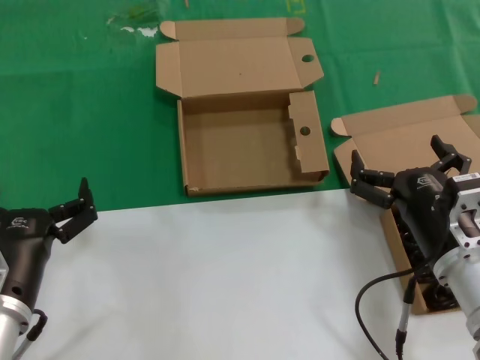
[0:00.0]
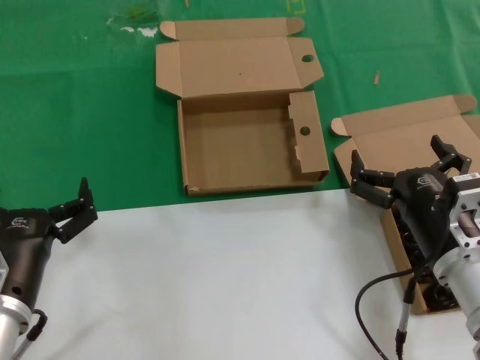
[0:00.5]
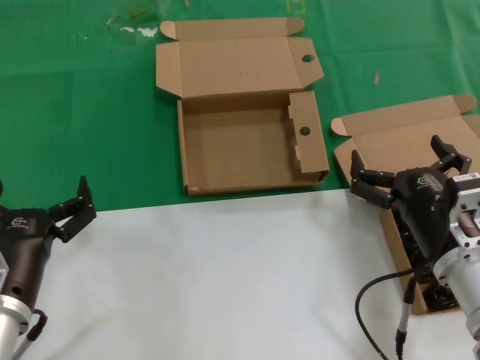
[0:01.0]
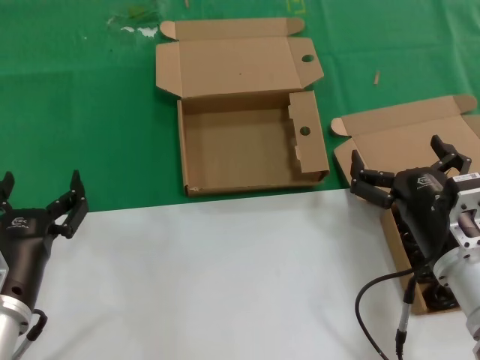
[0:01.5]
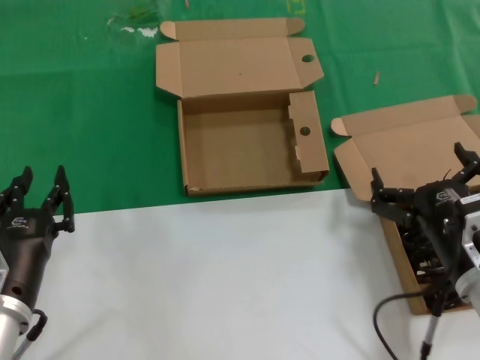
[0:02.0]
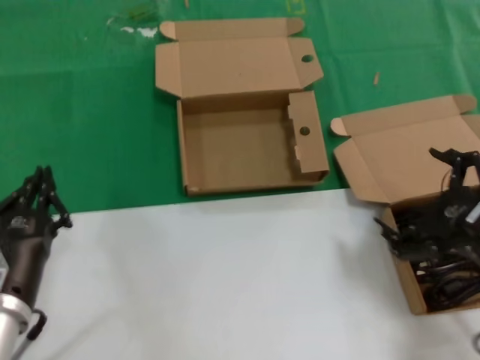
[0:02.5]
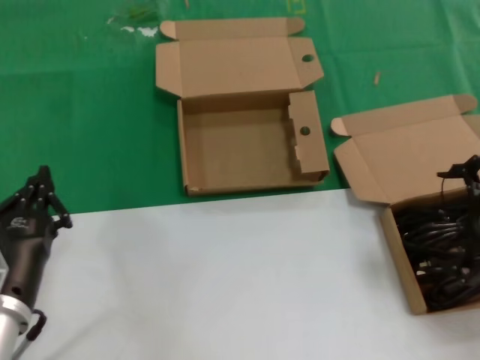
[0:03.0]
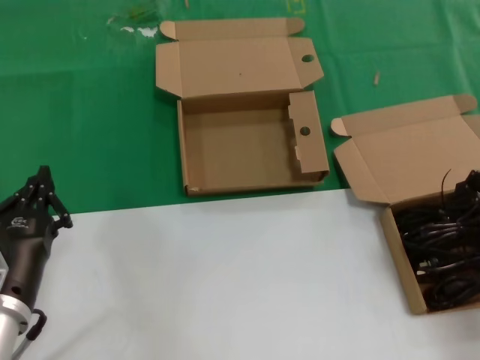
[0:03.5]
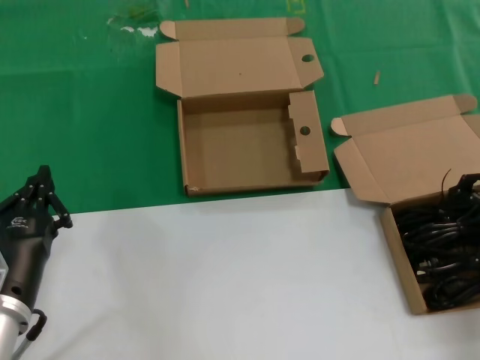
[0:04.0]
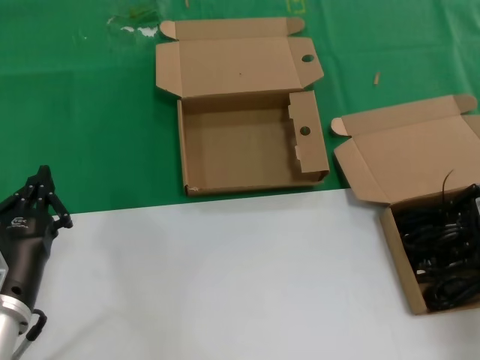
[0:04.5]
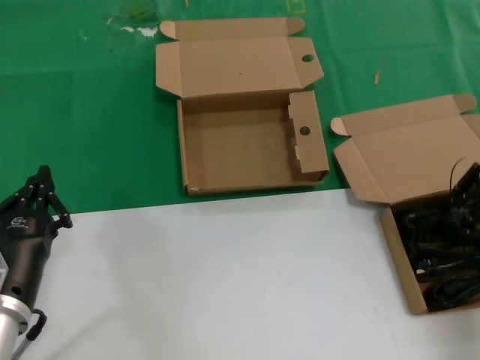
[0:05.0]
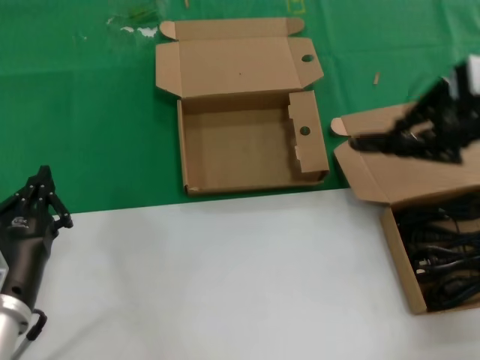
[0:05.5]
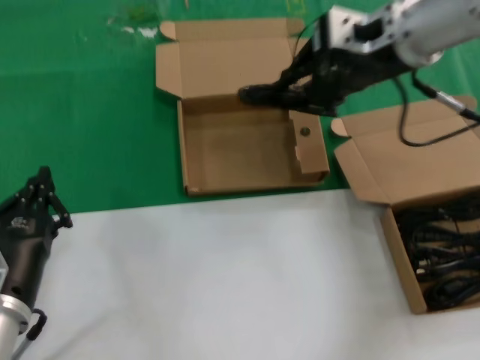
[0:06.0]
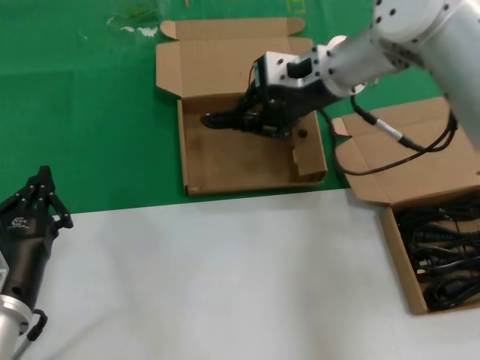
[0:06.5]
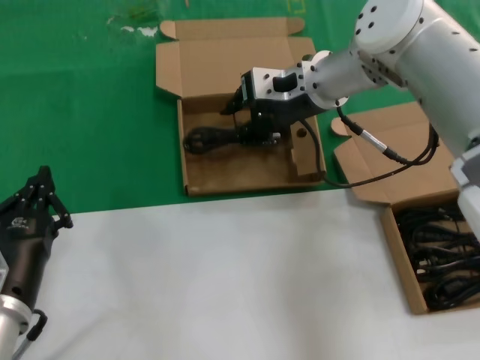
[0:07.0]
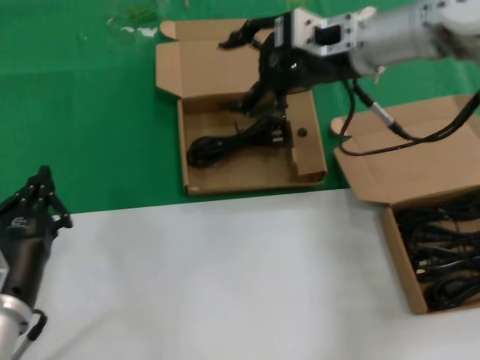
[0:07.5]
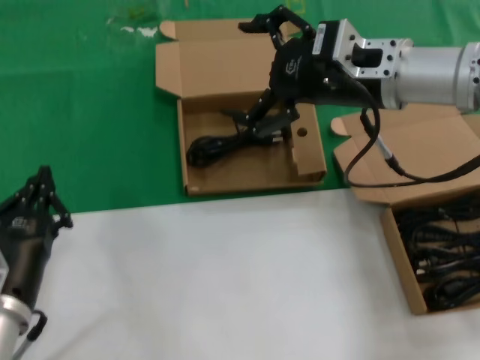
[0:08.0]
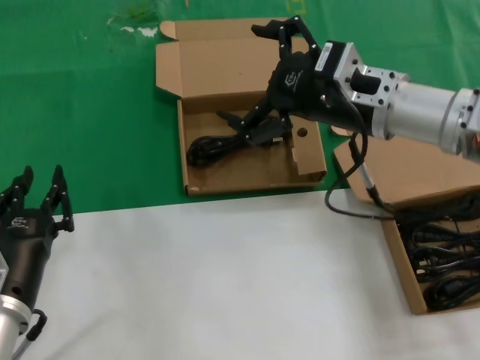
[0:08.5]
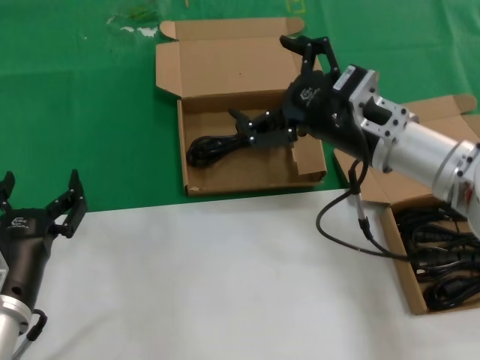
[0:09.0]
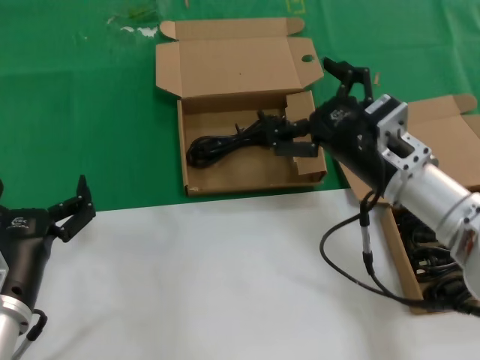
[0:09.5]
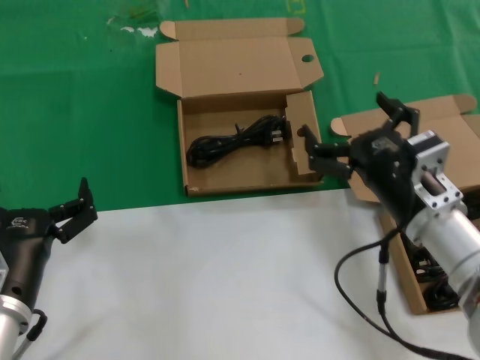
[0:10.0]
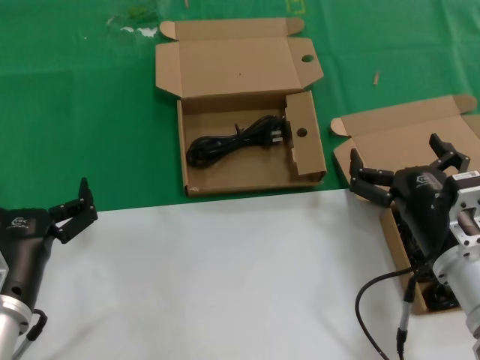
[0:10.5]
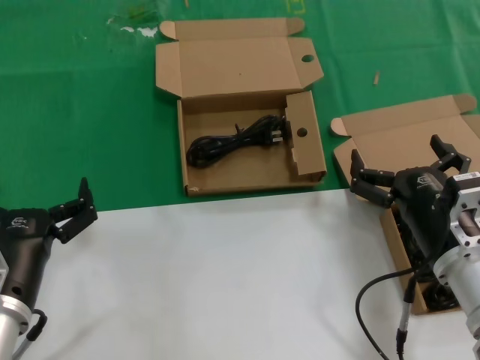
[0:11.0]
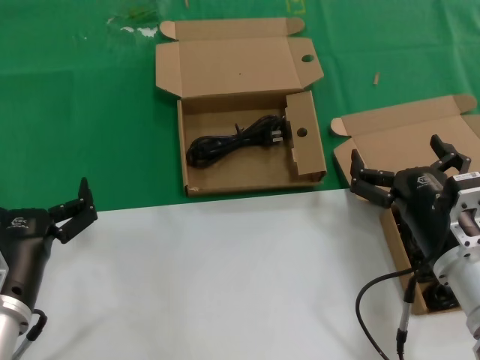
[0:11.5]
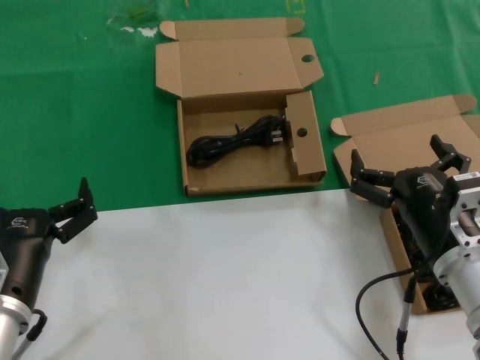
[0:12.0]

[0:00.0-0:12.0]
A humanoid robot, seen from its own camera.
Task of the whole recording: take the parts from the box containing them and put them into an empty box.
Step, 0:00.0 to 0:04.5: Grasp the data cable.
Step, 0:05.0 to 0:07.0: Place the data cable in the another box.
0:00.0 to 0:02.0: There are only small adjustments of the hands.
0:02.0 to 0:04.0: The right hand shifts roughly 25 cm upward, to the right and forward.
0:04.0 to 0:06.0: The right hand moves to the left, upward and forward, about 25 cm.
0:06.0 to 0:08.0: The right hand is displaced downward by some 5 cm, and moves some 5 cm forward and comes back.
0:08.0 to 0:10.0: The right hand travels downward and backward by roughly 20 cm.
0:10.0 to 0:12.0: The right hand moves roughly 5 cm.

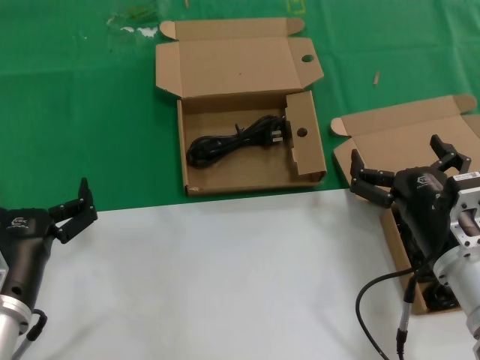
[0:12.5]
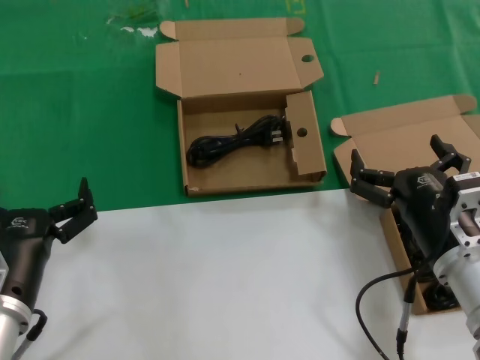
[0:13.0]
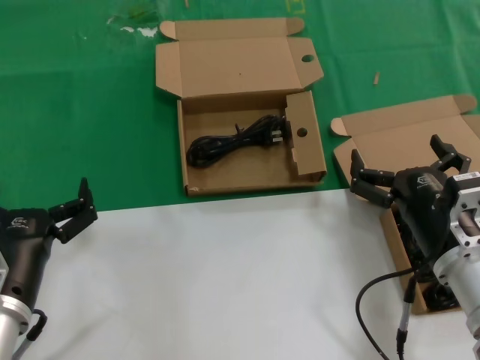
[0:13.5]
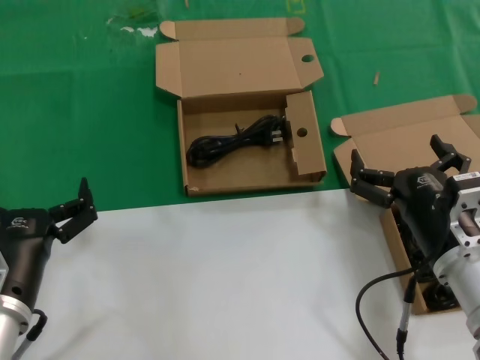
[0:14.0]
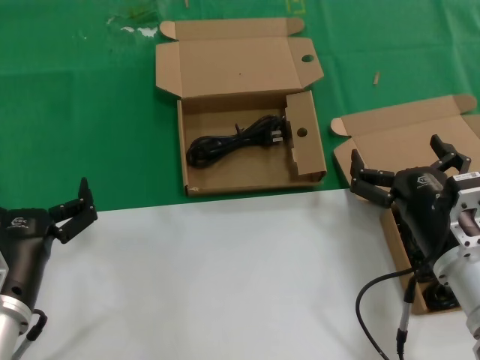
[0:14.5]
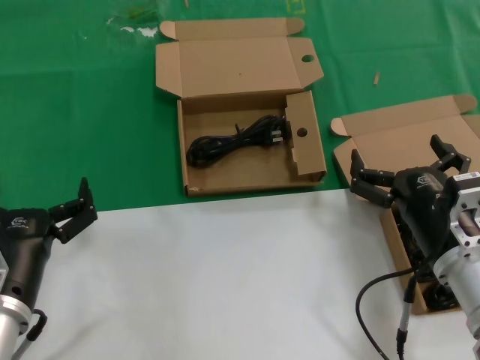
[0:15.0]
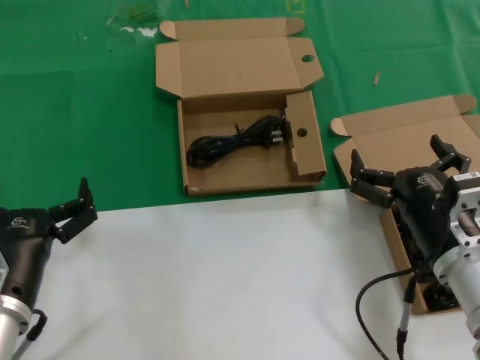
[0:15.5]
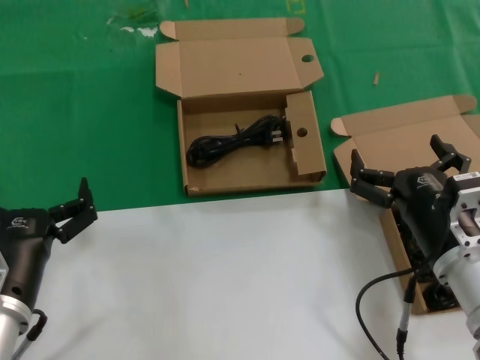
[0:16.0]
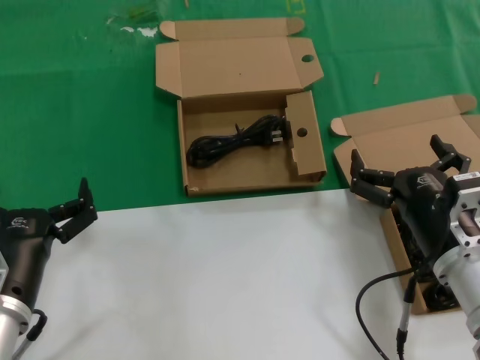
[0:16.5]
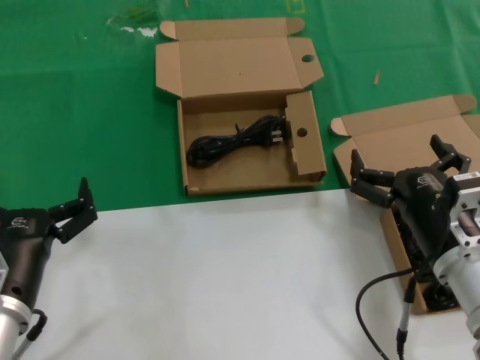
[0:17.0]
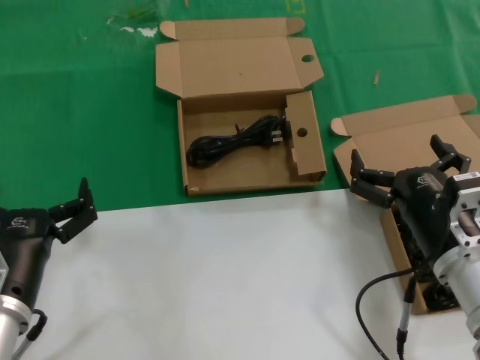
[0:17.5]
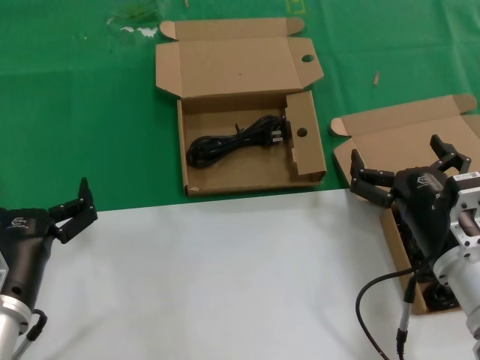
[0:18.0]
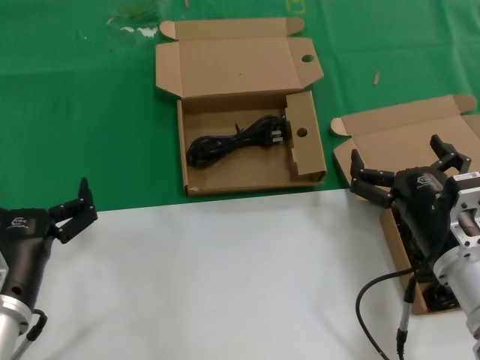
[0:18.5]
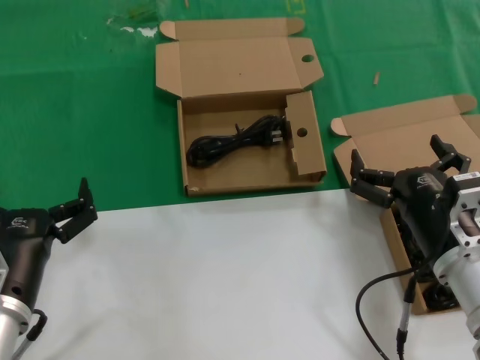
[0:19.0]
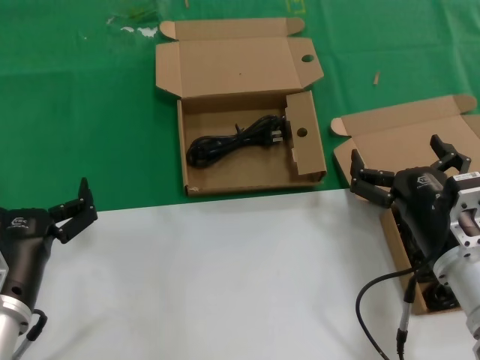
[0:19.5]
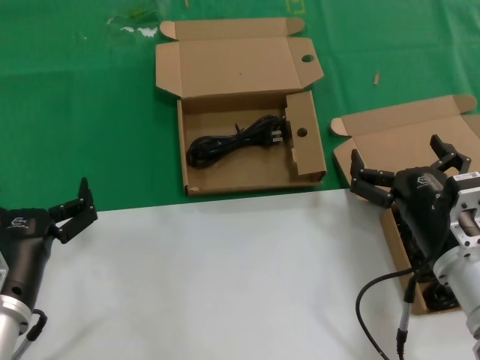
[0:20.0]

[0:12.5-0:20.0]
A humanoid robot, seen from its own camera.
Task of the whole recording: take the parts from the box containing them and put them into an empty box.
0:12.5 to 0:20.0: Both hands stay put.

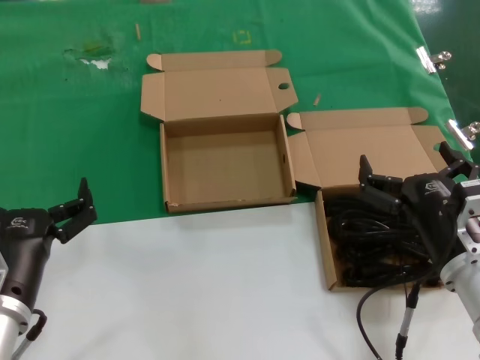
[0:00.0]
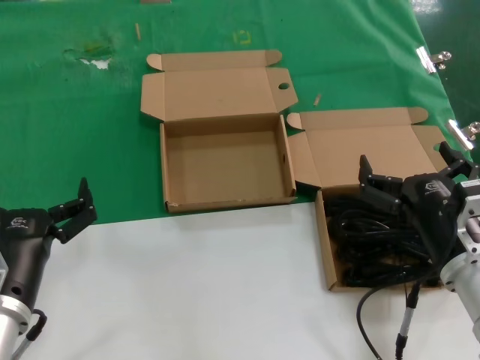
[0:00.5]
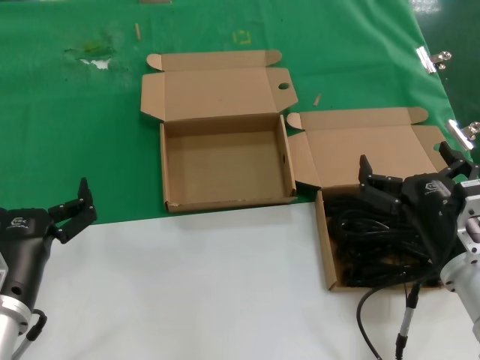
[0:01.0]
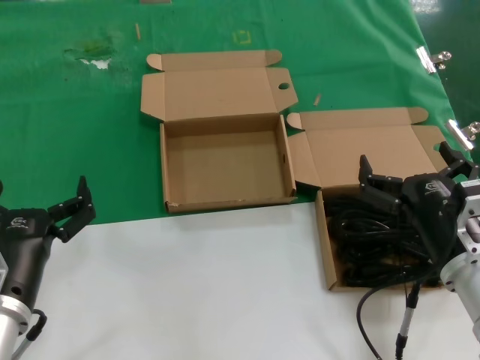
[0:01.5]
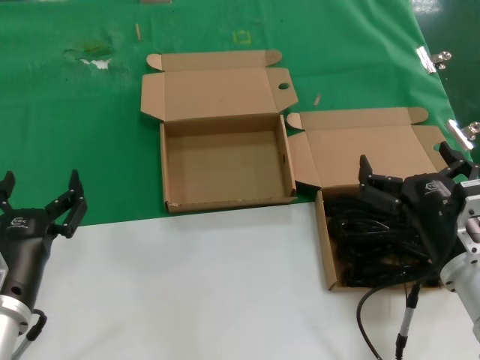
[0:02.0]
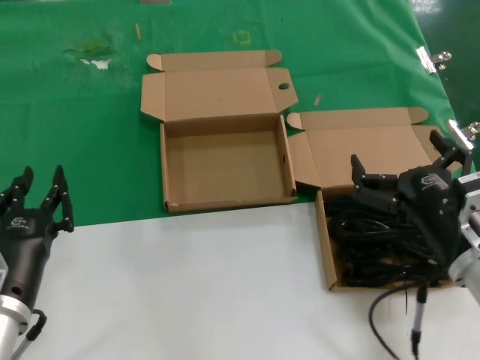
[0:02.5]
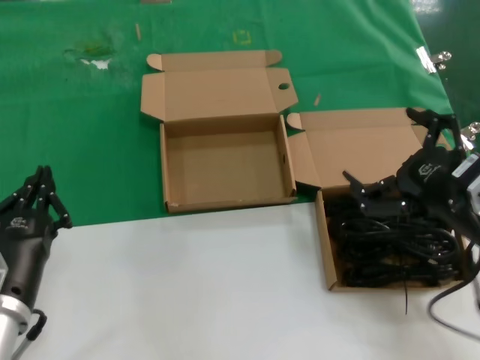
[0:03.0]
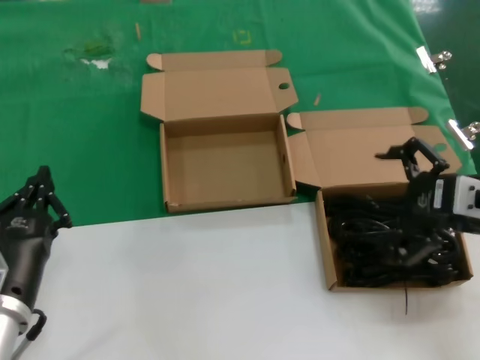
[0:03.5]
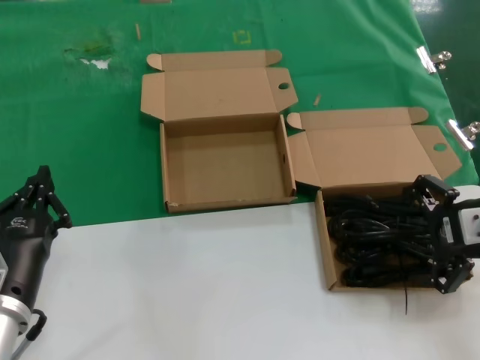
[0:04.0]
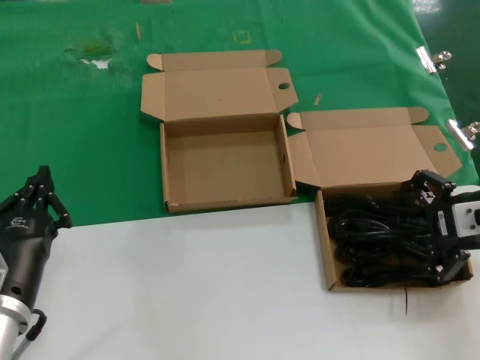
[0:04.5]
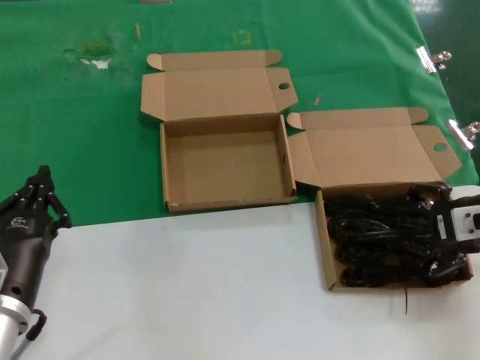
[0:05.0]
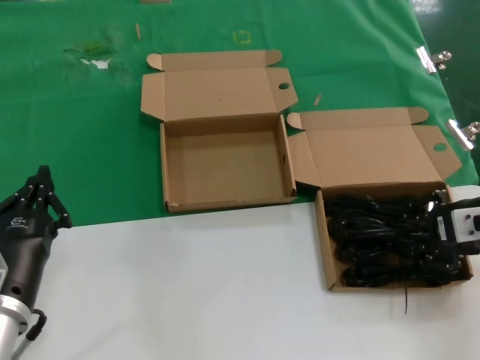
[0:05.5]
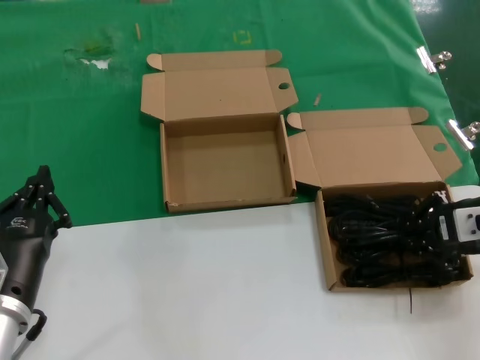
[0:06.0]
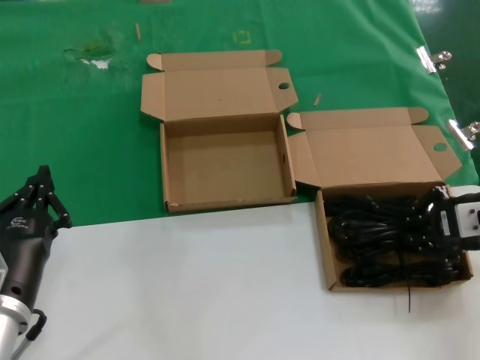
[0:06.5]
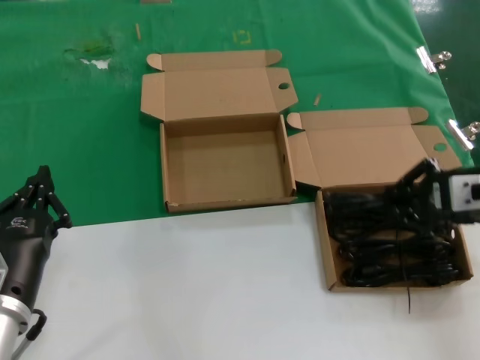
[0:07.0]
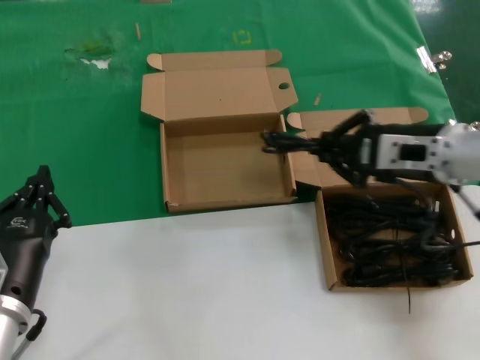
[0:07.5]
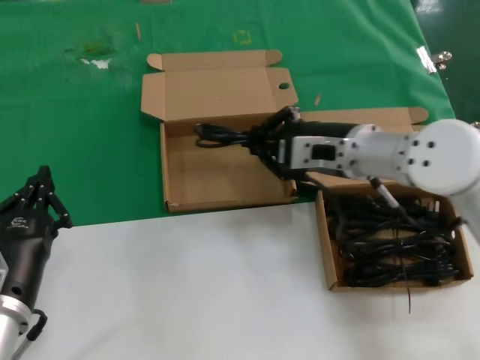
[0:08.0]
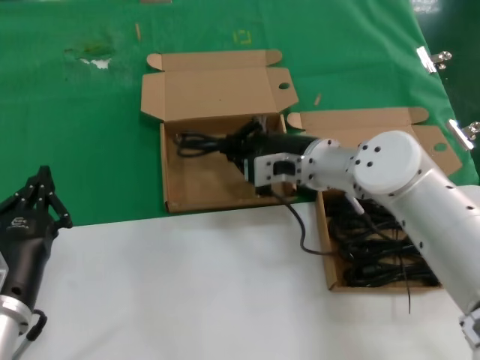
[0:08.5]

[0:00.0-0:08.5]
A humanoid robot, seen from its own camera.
Task of the whole recording: take the parts from the box containing them and put them into an empty box.
Step, 0:00.0 to 0:05.5: Grasp the data cable.
0:00.0 to 0:02.0: Both hands stay put.
0:02.0 to 0:04.0: The right hand moves upward, to the right and forward, roughly 15 cm.
0:04.0 to 0:06.5: The hands stay close to where they were, moving slightly.
0:06.5 to 0:08.5: The right hand travels to the left and forward by some 25 cm.
